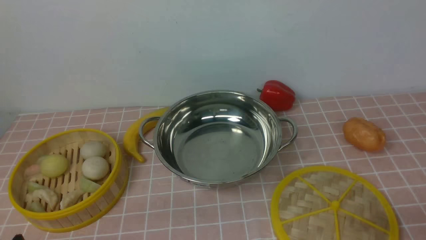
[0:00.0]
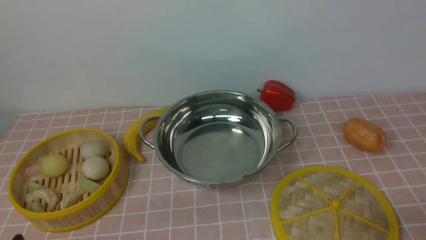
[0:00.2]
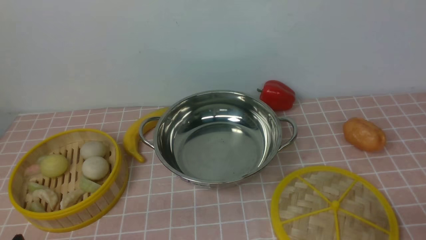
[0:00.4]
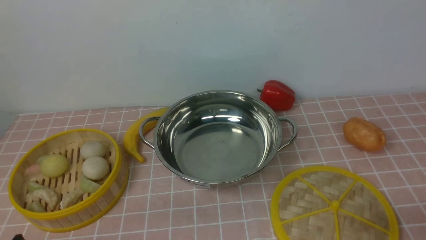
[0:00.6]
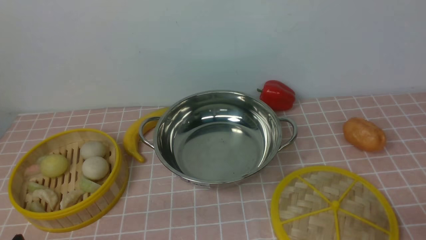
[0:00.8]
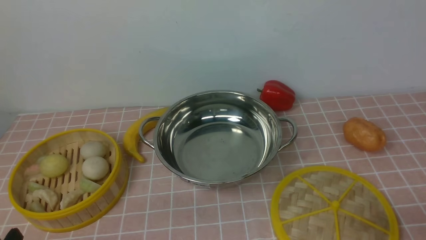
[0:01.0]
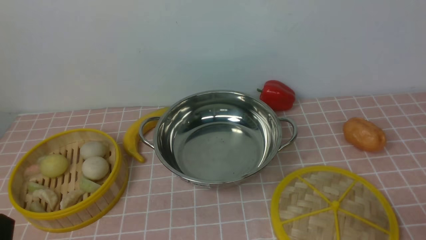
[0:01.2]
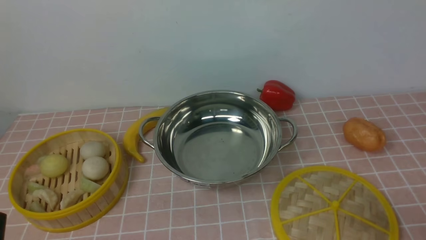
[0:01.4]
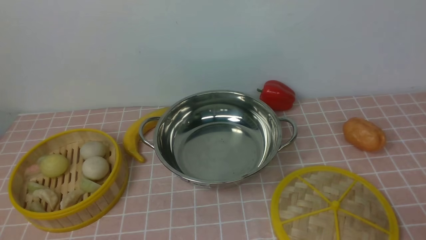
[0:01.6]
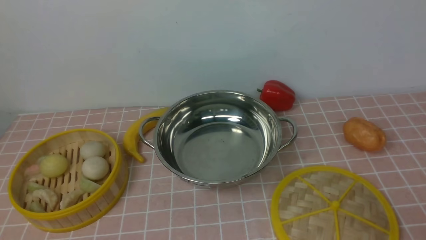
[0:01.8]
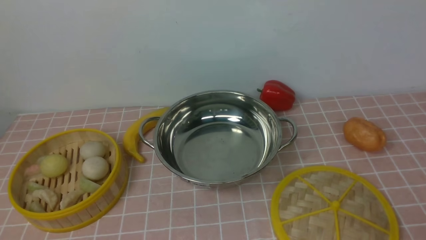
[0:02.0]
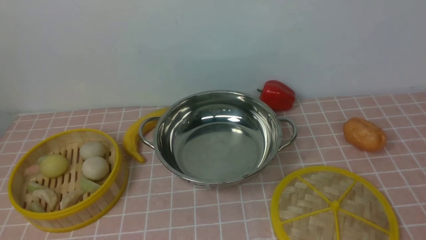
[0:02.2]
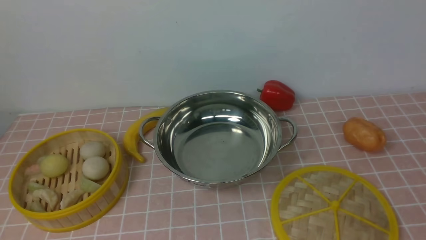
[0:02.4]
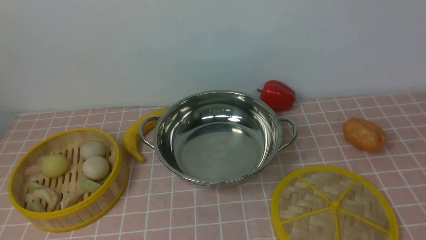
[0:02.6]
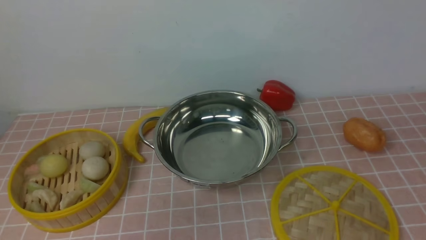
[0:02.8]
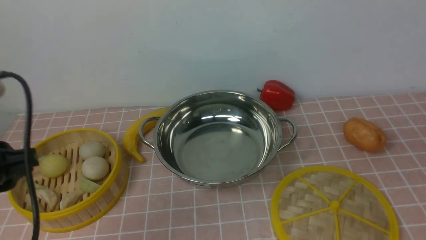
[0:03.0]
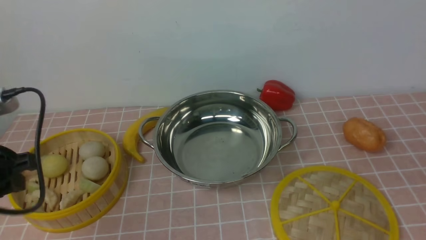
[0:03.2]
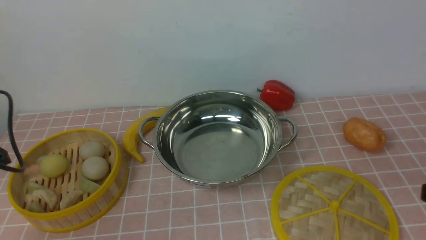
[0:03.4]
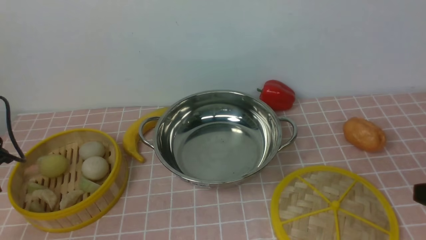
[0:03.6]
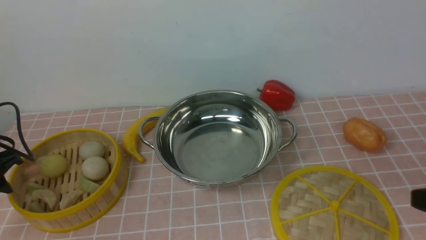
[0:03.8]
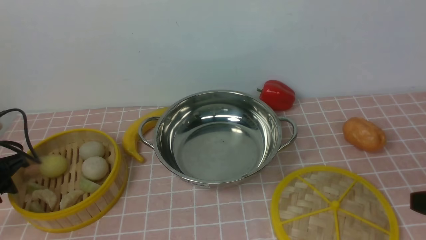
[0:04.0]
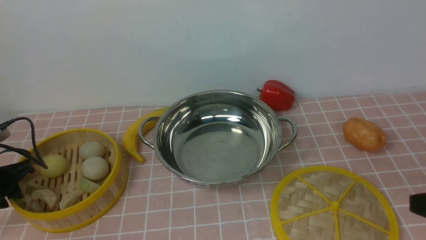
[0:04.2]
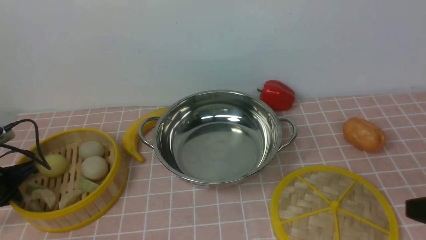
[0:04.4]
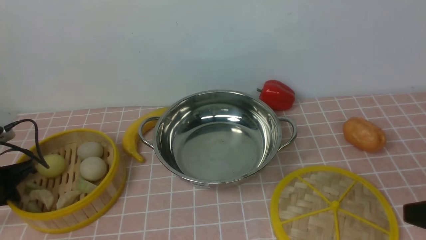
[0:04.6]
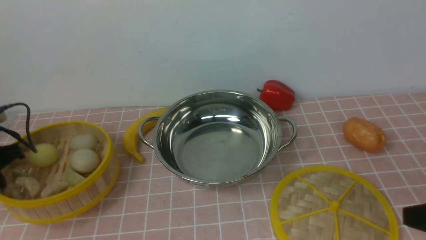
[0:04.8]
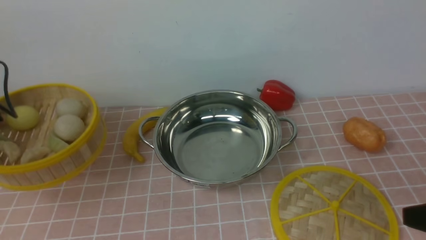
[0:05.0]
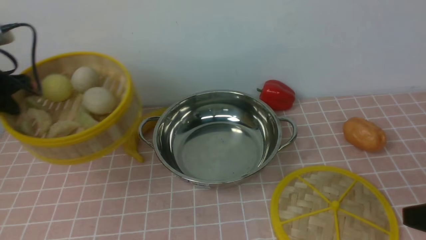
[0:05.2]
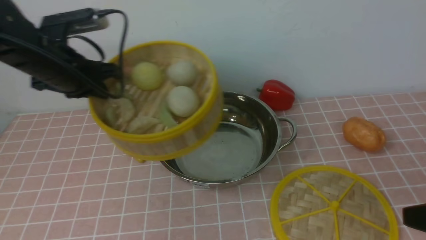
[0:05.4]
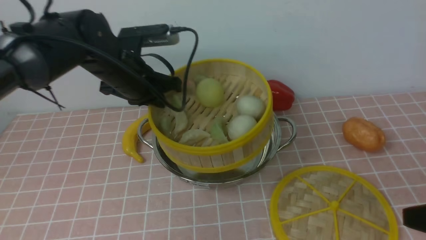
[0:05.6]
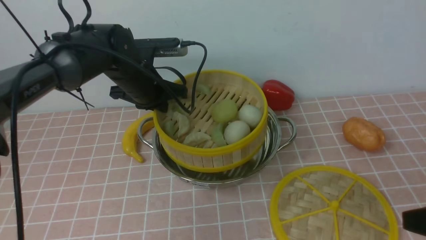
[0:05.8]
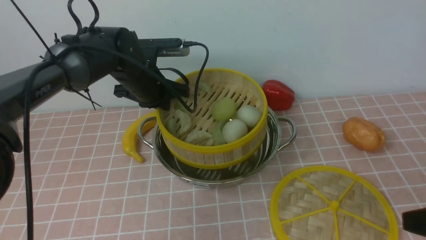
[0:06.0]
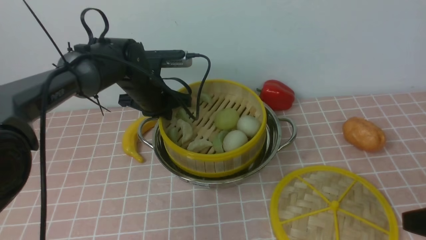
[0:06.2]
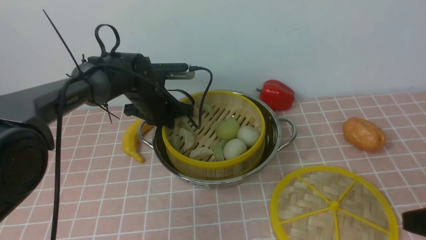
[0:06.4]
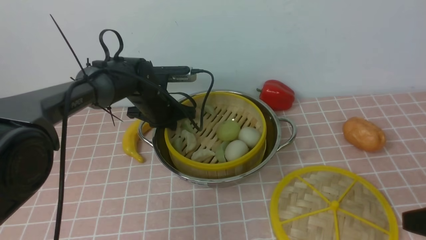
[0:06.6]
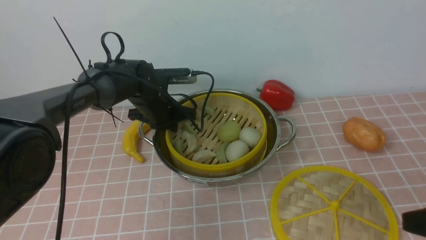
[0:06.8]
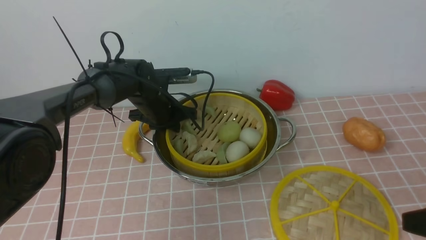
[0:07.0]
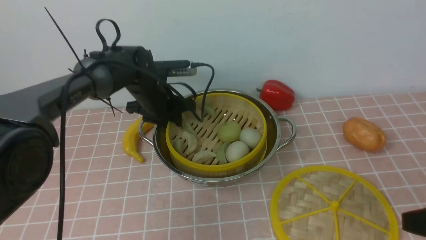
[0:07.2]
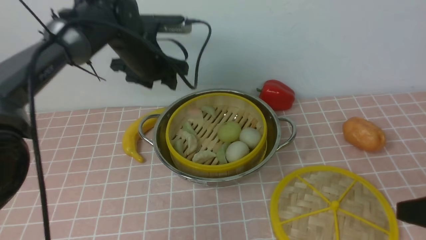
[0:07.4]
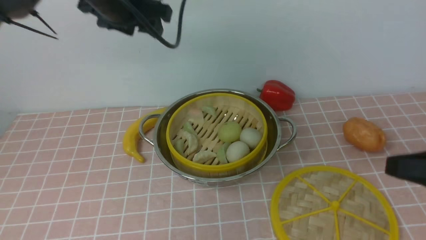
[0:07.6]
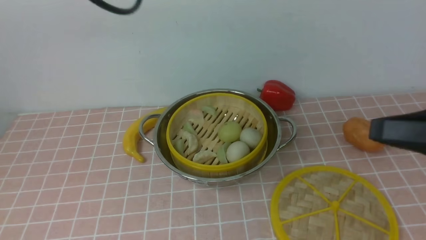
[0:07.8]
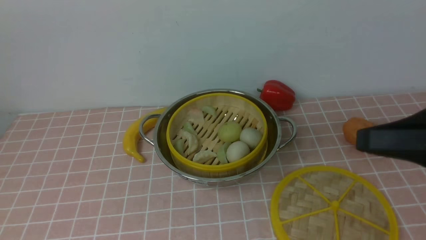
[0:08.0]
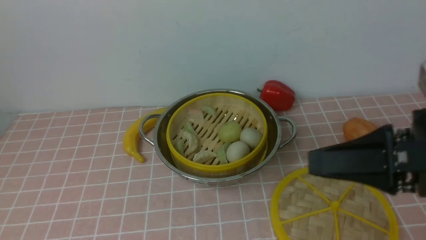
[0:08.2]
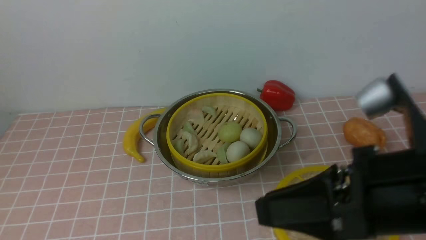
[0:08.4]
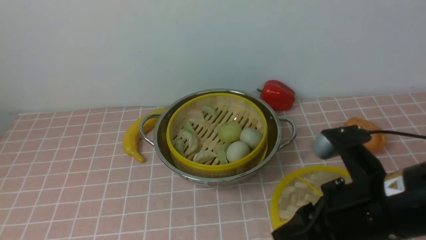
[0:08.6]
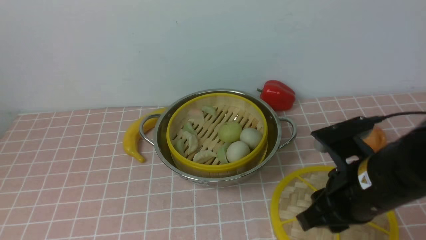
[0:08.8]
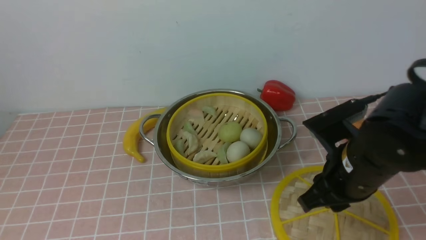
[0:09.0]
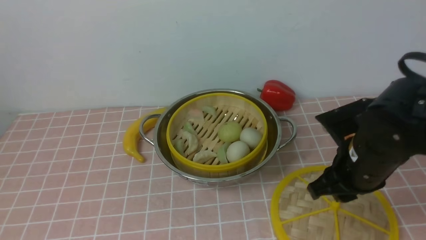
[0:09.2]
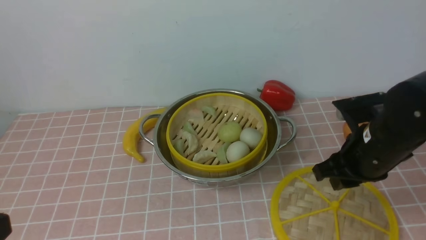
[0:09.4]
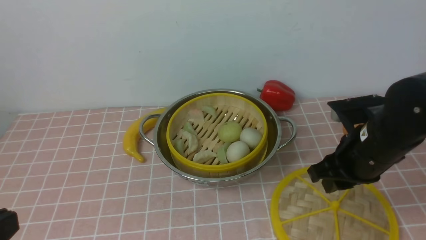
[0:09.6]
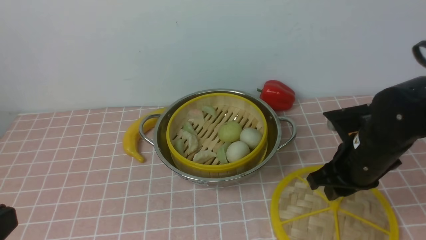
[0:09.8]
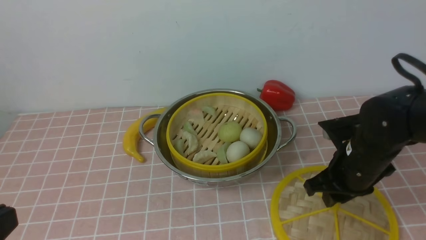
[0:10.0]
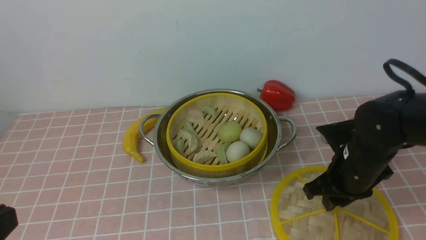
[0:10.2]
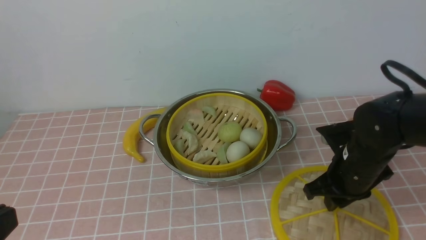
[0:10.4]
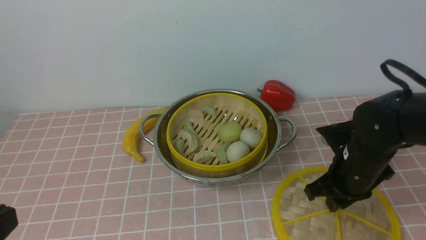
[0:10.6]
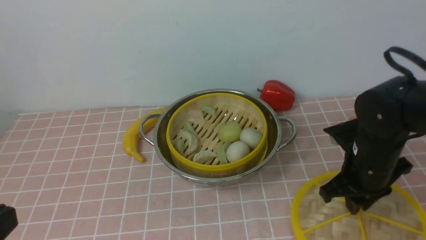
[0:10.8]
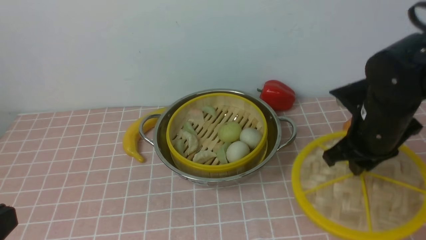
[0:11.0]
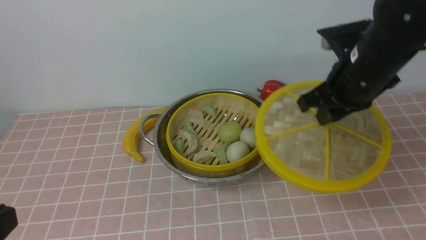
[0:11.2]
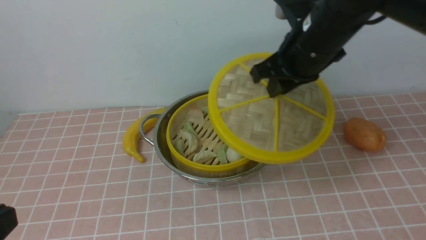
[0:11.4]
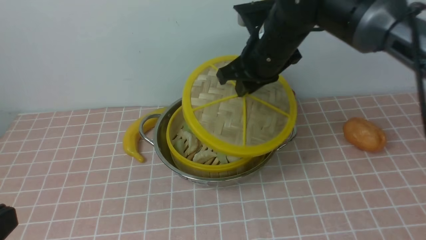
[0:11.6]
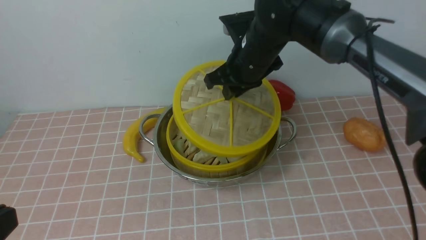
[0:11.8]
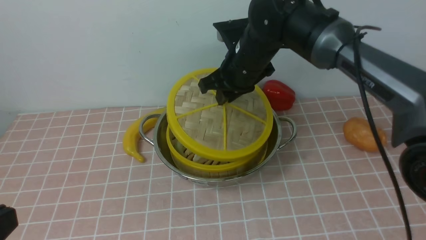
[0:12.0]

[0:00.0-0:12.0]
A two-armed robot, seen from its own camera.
Task of the whole recording: place the steamer in the pot on the pink tablecloth, and put the lid on the steamer.
Step, 0:00.0 to 0:04.6: use the left arm to lift the steamer closest to it.
Step, 0:04.8 to 0:07.2: use the left arm to put the steamer into the iron steamer pot in the middle.
Step, 0:07.4 to 0:10.8: use the right arm to lift the lid of the steamer.
0:01.6 to 0:03.0: The left gripper heads forward and upward, covering about 15 cm.
0:03.0 to 0:04.4: The right gripper shifts by roughly 5 cm. The left gripper heads downward, forward and to the left, covering approximately 25 cm, and closes up.
0:04.4 to 0:06.0: The left gripper moves to the right and forward, some 30 cm.
0:06.0 to 0:07.6: The left gripper shifts about 20 cm upward, and opens. The right gripper heads upward, covering about 5 cm.
0:07.6 to 0:09.0: The left gripper moves backward, roughly 40 cm, and closes its fingers. The right gripper travels to the left, forward and downward by approximately 15 cm.
0:09.0 to 0:10.4: The right gripper is displaced downward and forward by approximately 10 cm.
0:10.4 to 0:12.0: The right gripper moves to the left, forward and upward, roughly 20 cm.

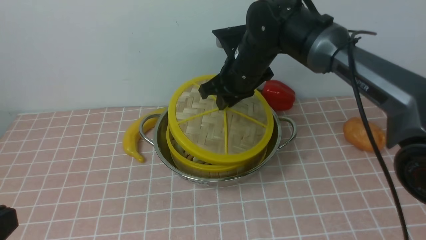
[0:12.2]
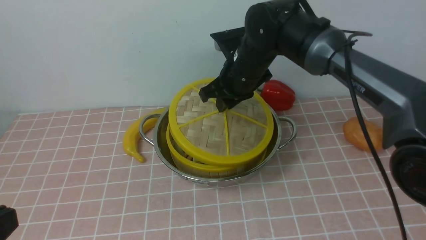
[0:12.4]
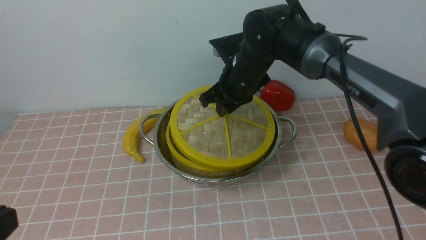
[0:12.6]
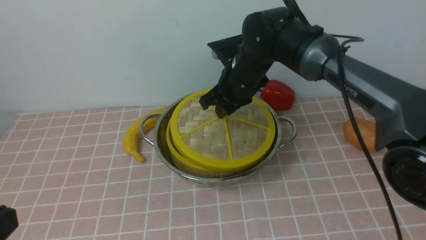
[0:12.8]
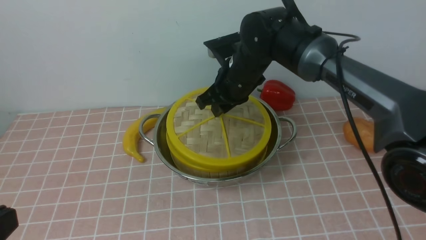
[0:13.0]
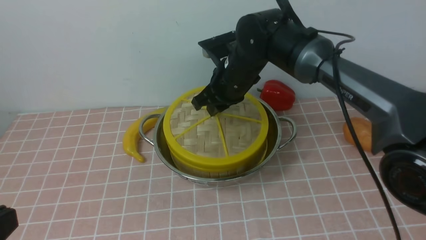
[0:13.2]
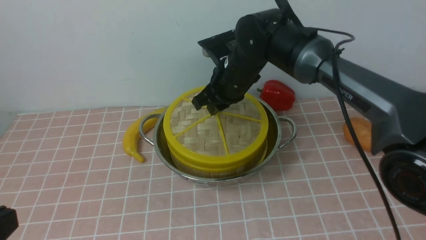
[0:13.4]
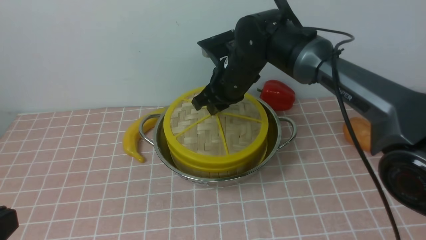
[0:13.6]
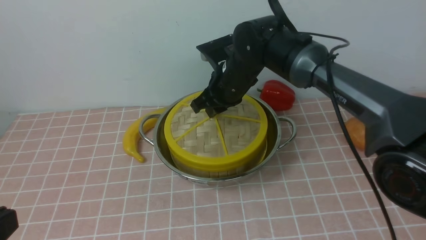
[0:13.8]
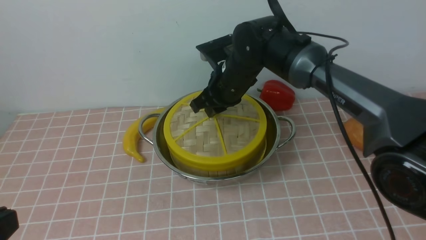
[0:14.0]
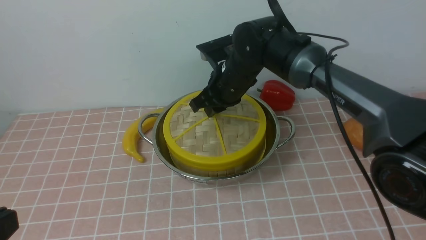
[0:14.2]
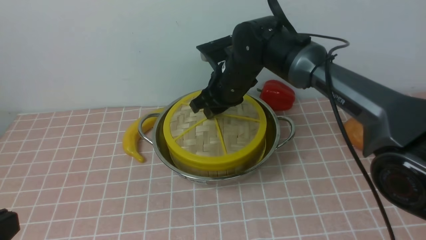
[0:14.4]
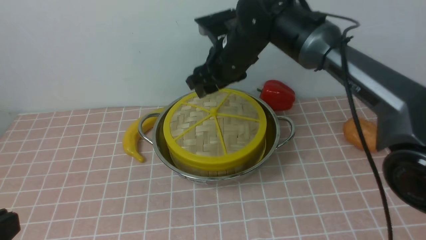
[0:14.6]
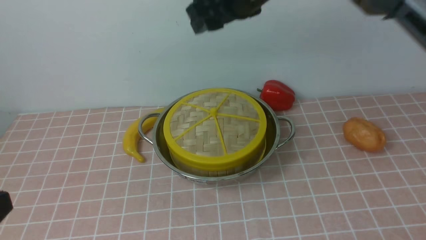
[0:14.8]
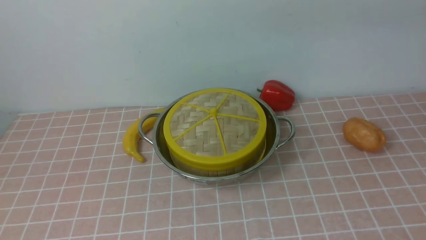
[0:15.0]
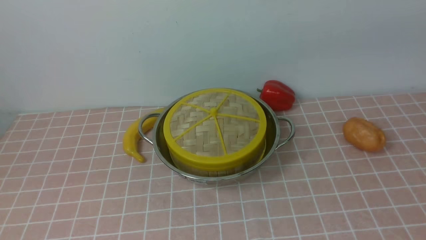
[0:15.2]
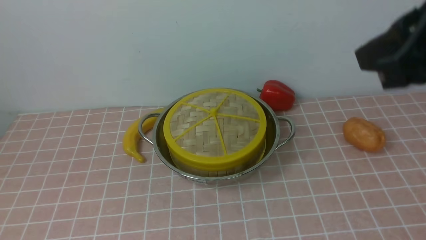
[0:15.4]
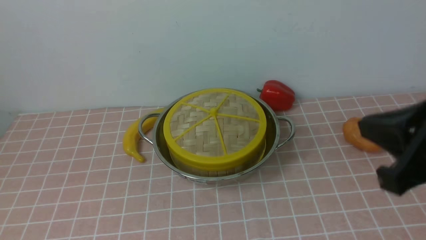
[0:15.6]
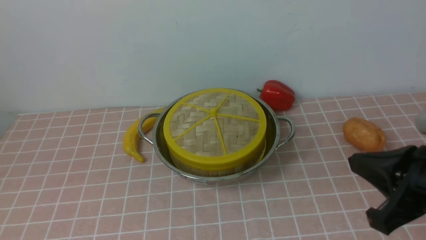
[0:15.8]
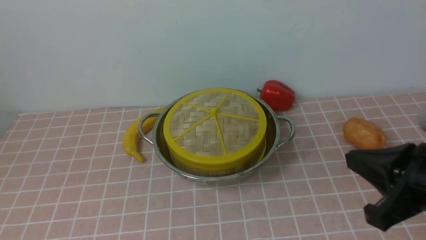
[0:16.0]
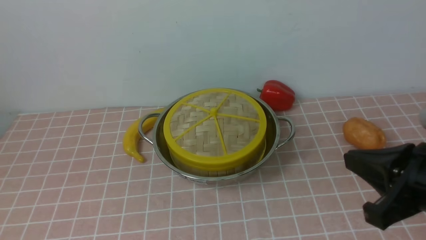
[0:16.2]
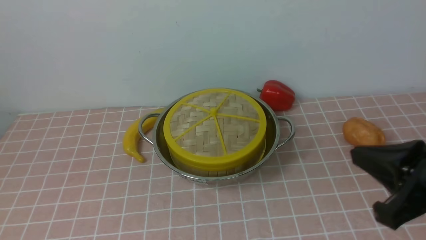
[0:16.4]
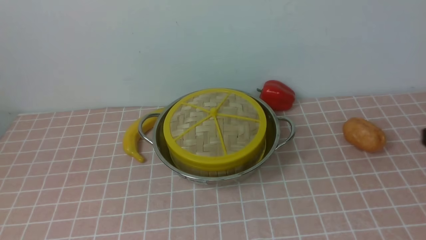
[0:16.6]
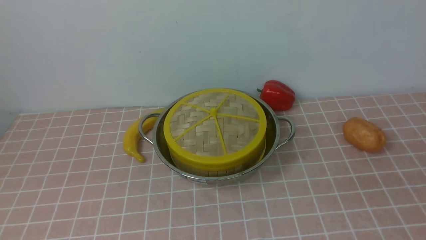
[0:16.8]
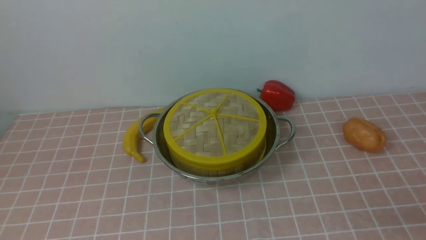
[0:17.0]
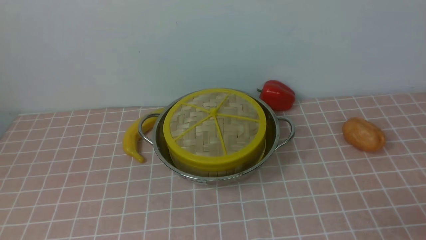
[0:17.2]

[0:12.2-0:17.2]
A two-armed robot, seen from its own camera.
Task of the whole recording: place the steamer in the pot on the pink tablecloth, and put the lid on the steamer.
Step, 0:12.2 to 0:14.4: use the right arm to place the steamer lid on the steamer.
0:12.2 to 0:13.8: The grippers make only small movements.
0:13.8 to 0:15.6: The right gripper is displaced backward, to the right and upward by some 35 cm, and opens and closes again.
0:15.6 to 0:17.2: The right gripper heads downward, to the right and backward, covering roughly 20 cm.
